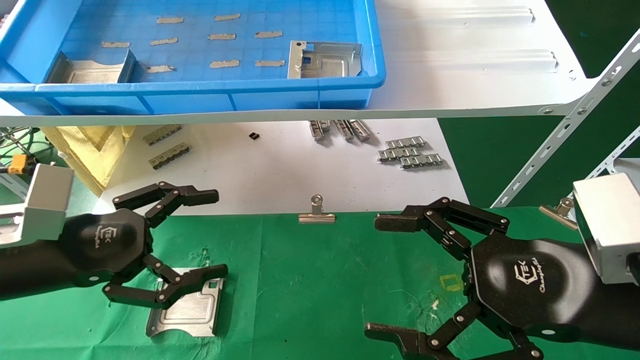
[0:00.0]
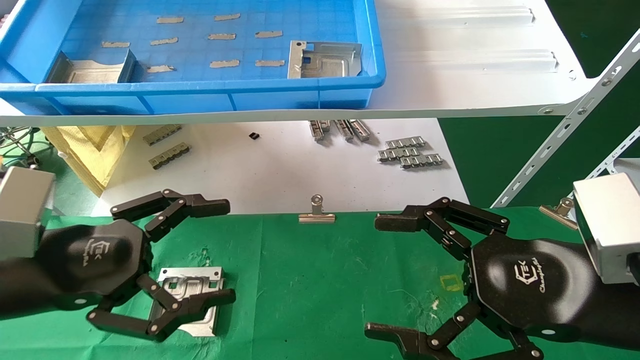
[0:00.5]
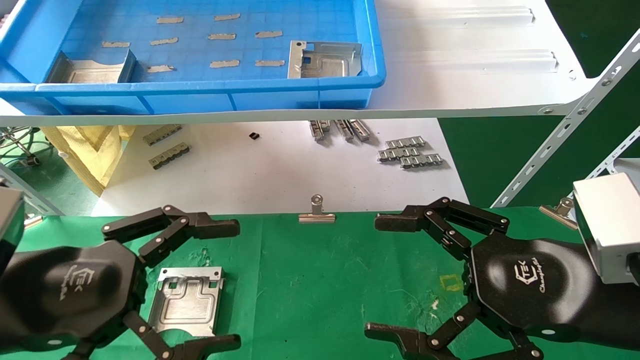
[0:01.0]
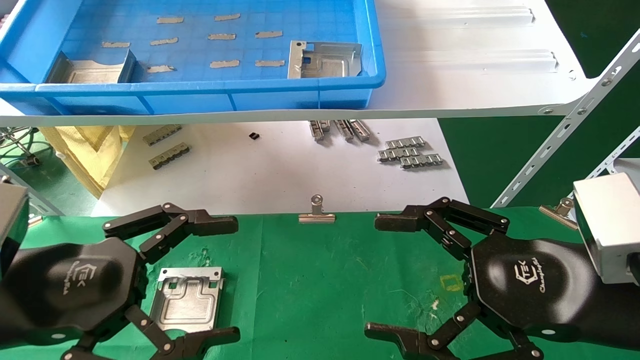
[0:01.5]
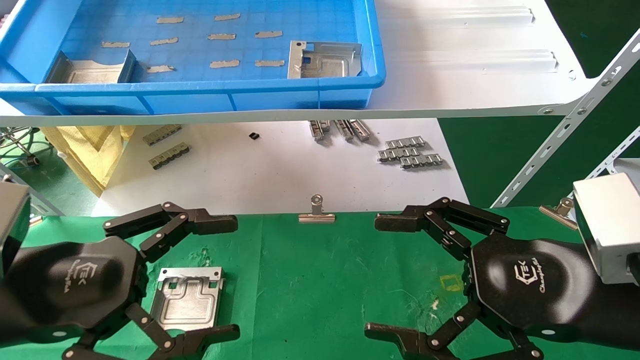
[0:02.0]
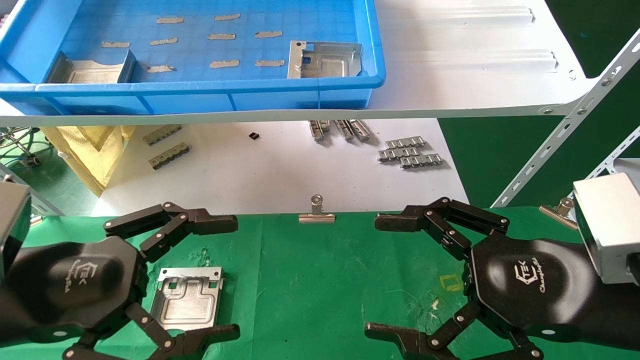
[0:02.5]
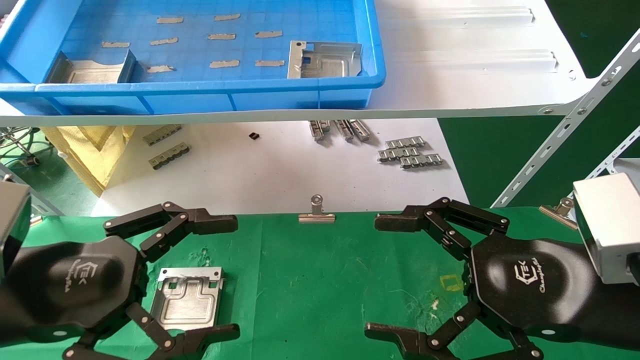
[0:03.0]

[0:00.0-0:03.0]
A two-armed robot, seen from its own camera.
Task of the whole recording: use the mechanical arm to pick up the parts and place them on the table.
0:00.0 to 0:01.5: The left gripper travels backward by some 5 cm.
0:01.5 to 0:03.0: The two grippers keep their place.
